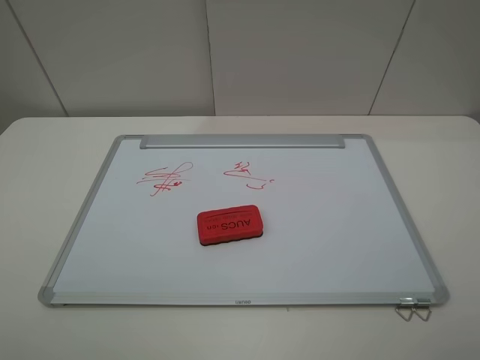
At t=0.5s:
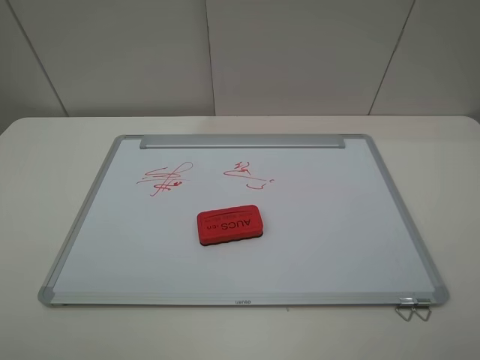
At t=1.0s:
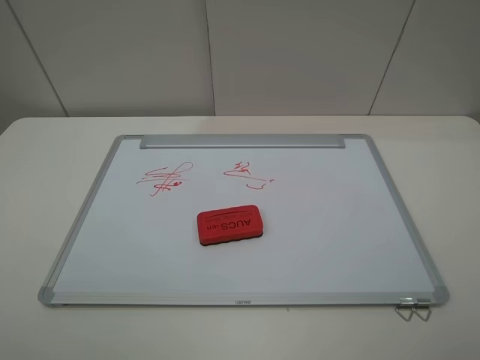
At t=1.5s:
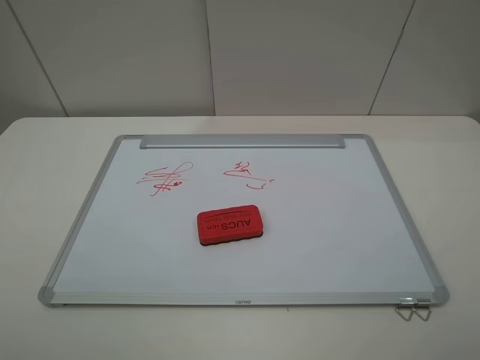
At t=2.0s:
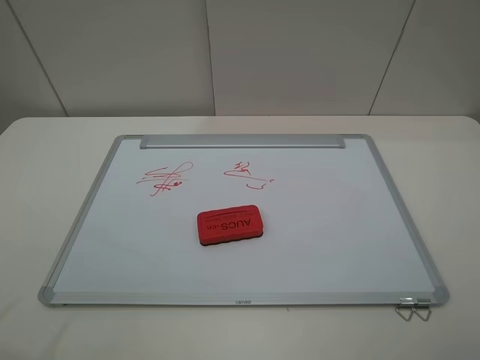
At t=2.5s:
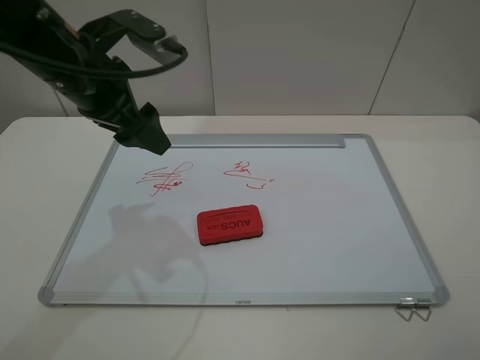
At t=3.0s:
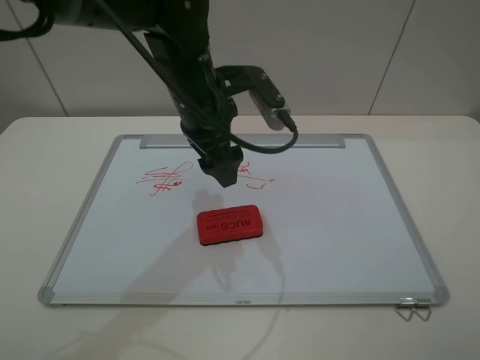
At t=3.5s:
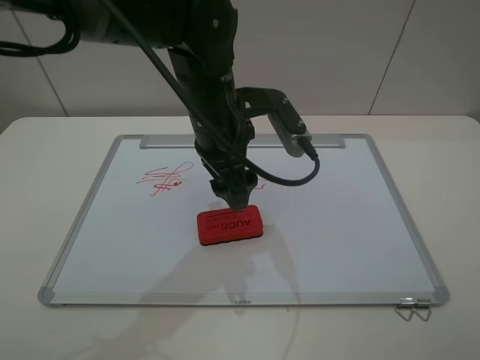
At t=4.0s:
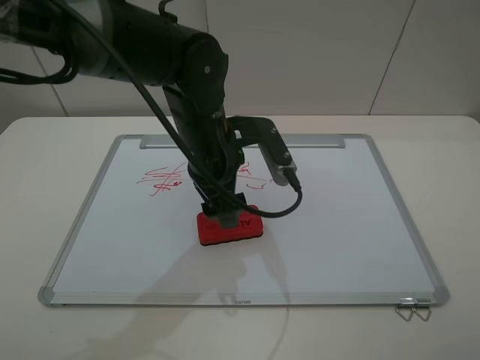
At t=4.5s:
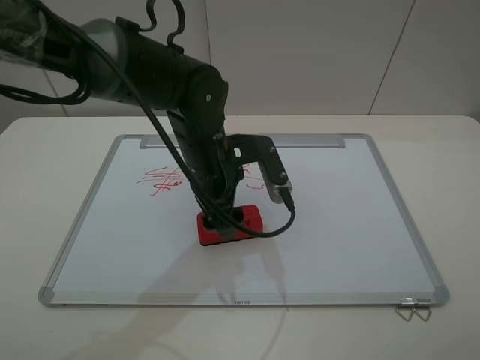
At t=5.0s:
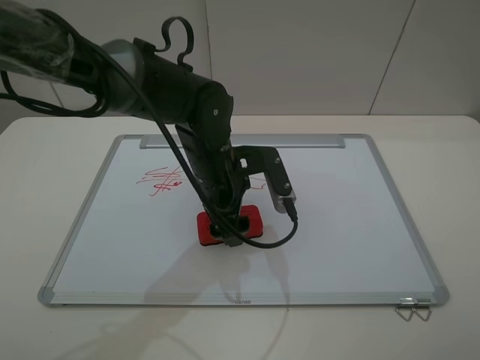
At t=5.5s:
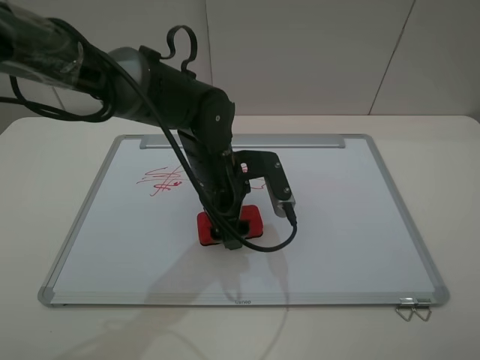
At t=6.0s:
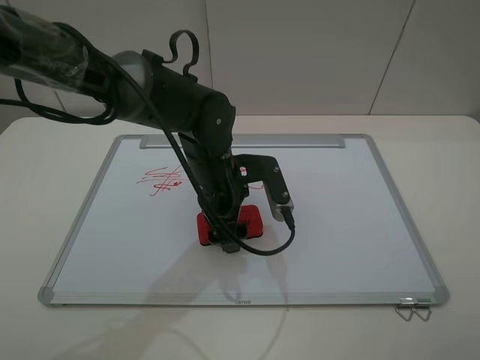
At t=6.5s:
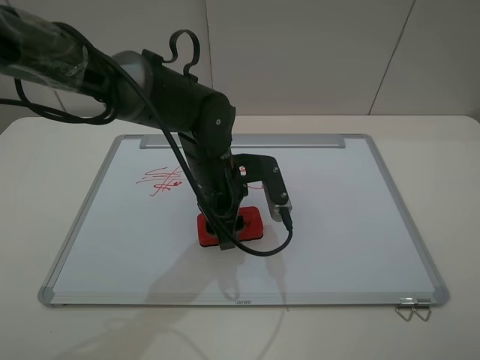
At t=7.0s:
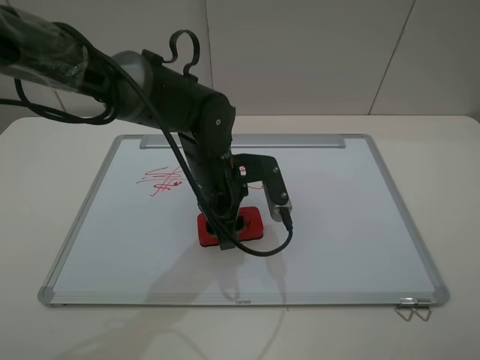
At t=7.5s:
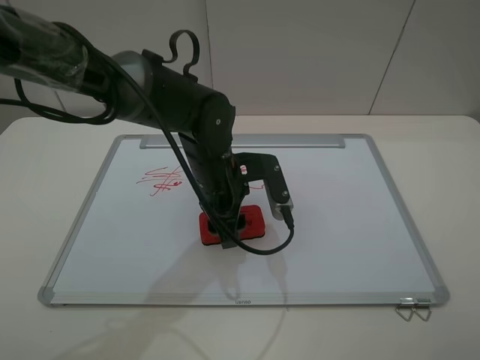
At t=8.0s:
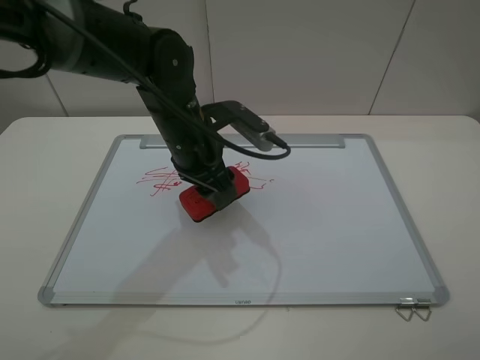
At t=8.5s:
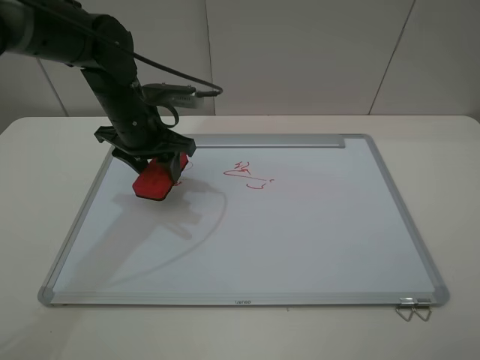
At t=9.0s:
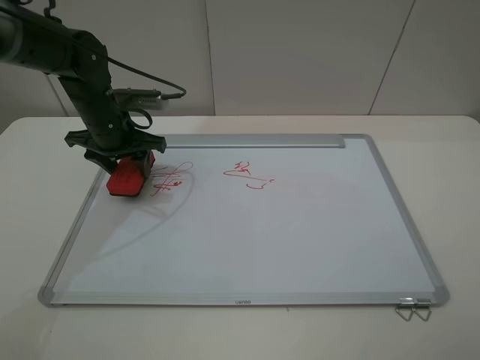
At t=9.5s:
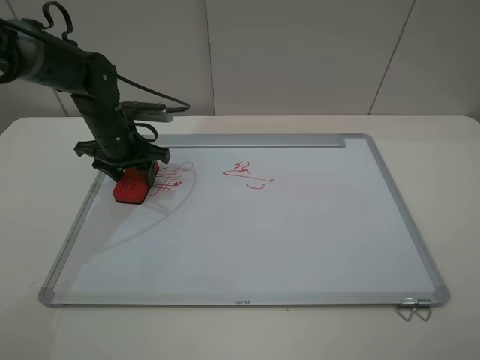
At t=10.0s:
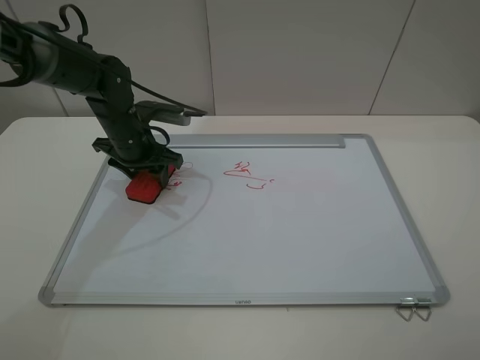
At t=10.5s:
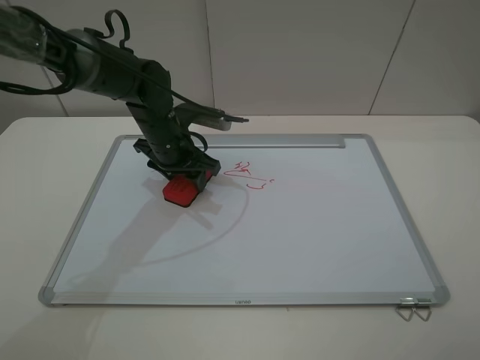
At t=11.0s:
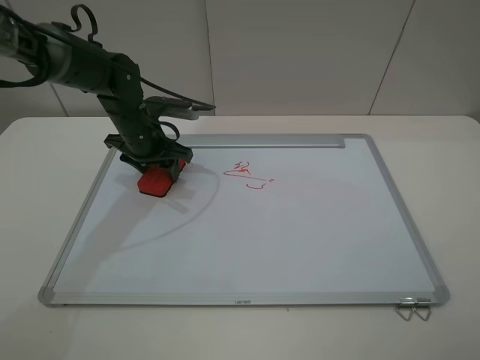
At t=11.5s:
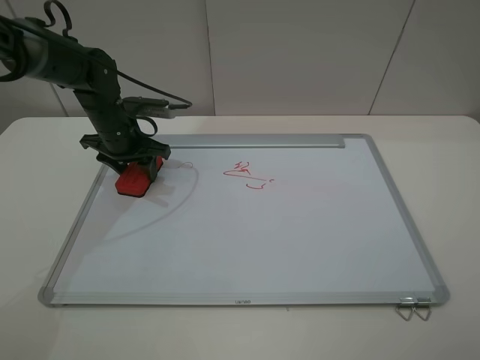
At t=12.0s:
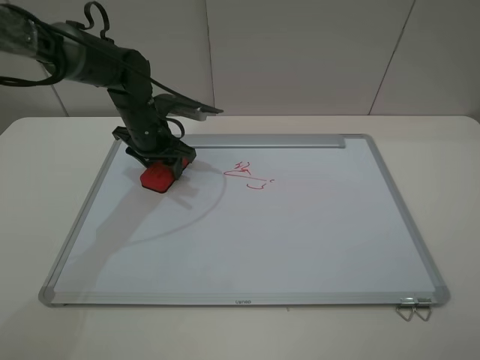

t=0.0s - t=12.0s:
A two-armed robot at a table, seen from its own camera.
Step, t=0.0s - t=6.0s: Grasp the eraser with the left gripper.
t=2.0s - t=4.0s: The left gripper goes about 35 cm to the right, forward and downward.
t=4.0s - t=6.0s: The left gripper is displaced downward by roughly 5 cm.
t=6.0s - t=8.0s: The left gripper is displaced upward by roughly 5 cm, and closes.
t=8.0s - t=10.0s: The left gripper is displaced to the left, forward and downward by roughly 15 cm.
t=10.0s - t=12.0s: The left gripper goes left and right, some 10 cm each way, reversing 2 times.

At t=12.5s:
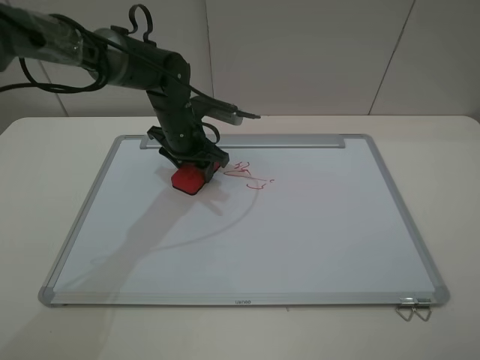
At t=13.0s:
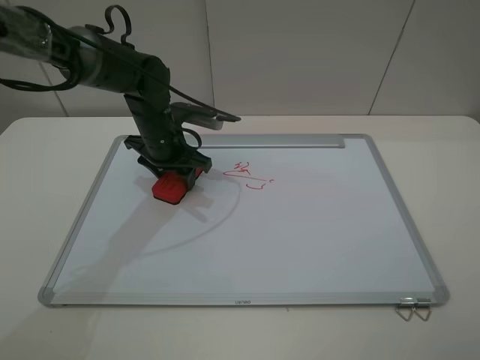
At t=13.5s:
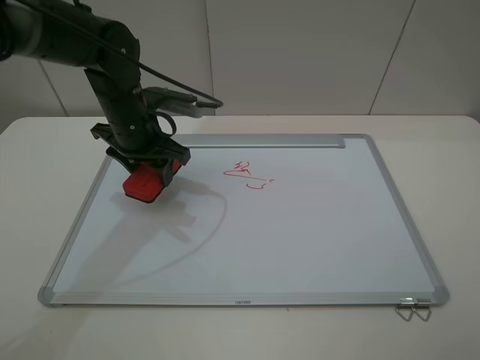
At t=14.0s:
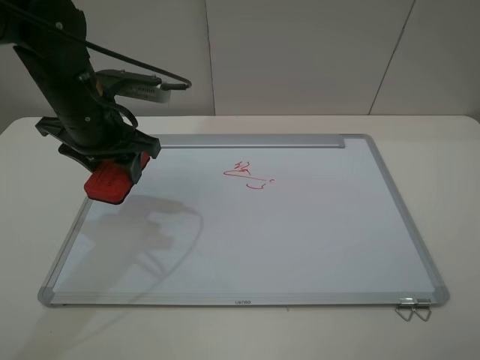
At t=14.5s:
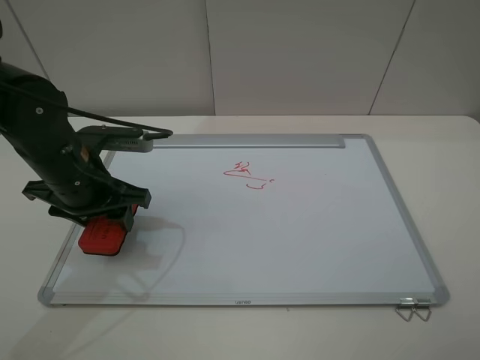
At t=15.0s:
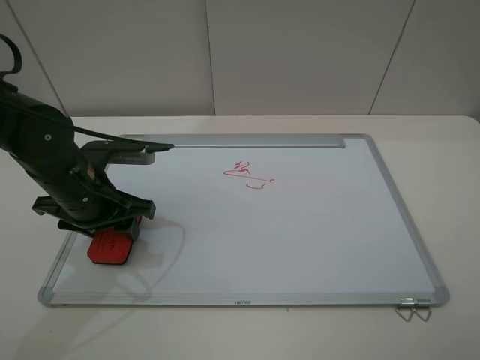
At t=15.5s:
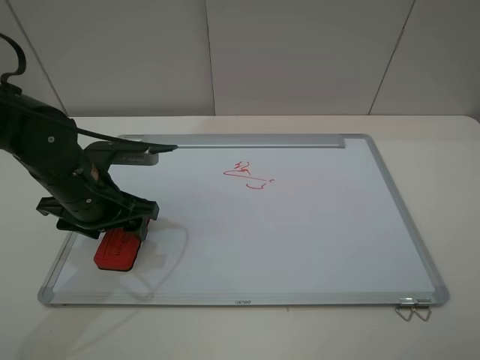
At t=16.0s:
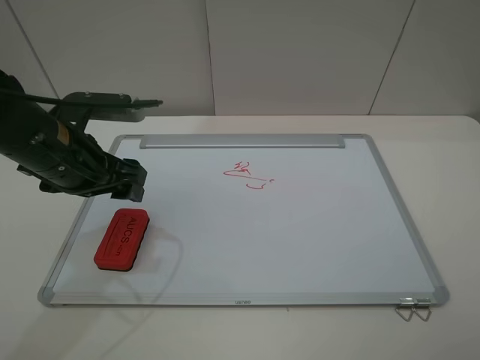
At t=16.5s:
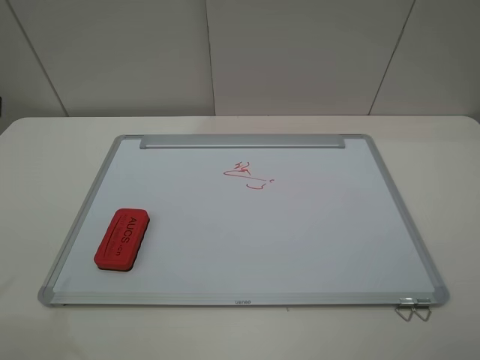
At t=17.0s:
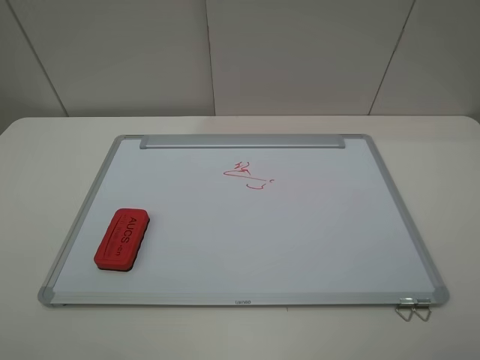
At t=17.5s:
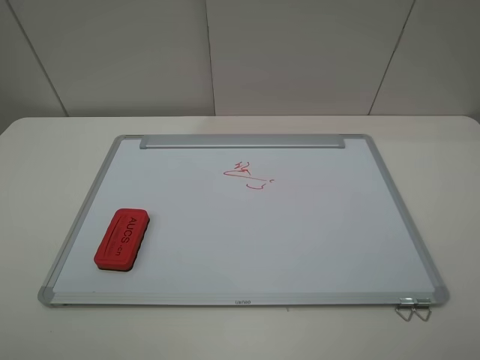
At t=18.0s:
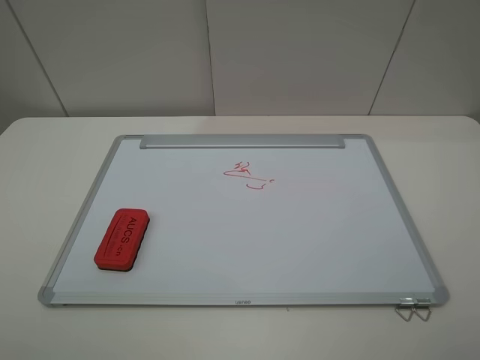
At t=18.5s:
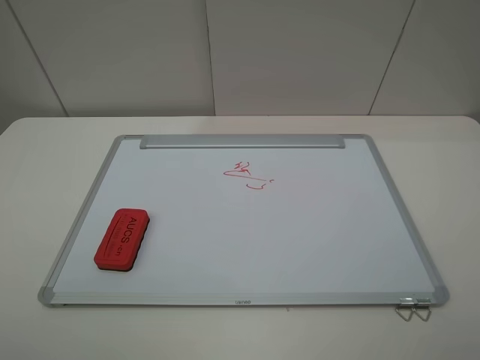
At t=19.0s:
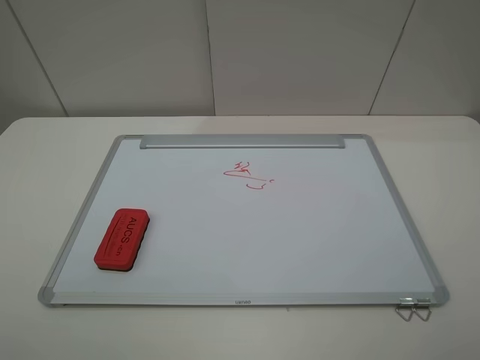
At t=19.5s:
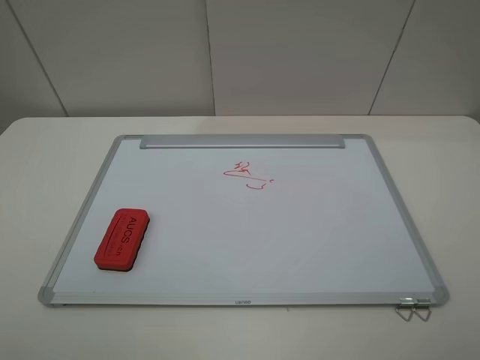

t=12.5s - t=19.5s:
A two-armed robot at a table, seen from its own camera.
Step, t=14.0s - t=15.5s: Place the eraser with the left gripper.
t=12.5s - t=14.5s: The left gripper moves backward and to the left, about 20 cm.
t=14.5s - t=16.0s: The left gripper goes about 5 cm upward, and opens.
t=16.0s - t=17.5s: The left gripper moves backward and to the left, approximately 25 cm.
